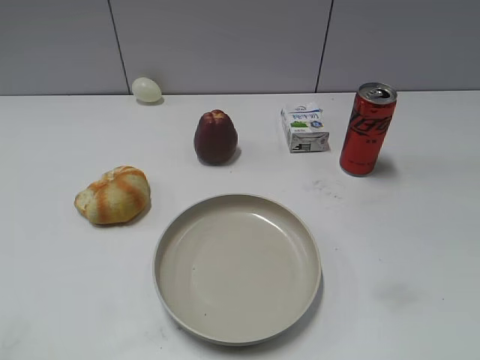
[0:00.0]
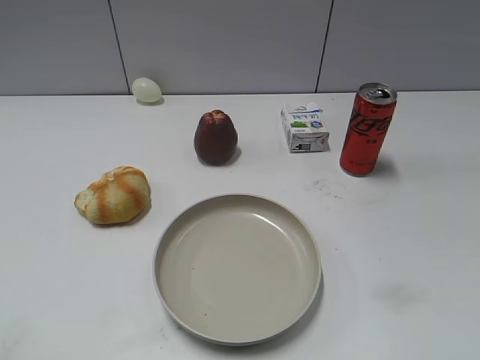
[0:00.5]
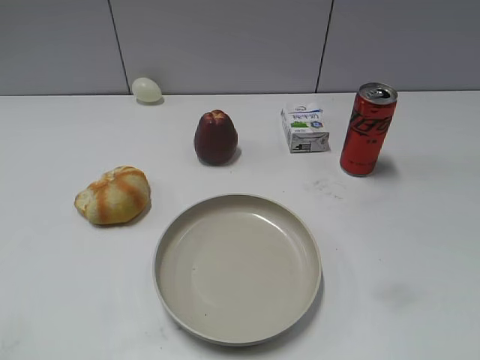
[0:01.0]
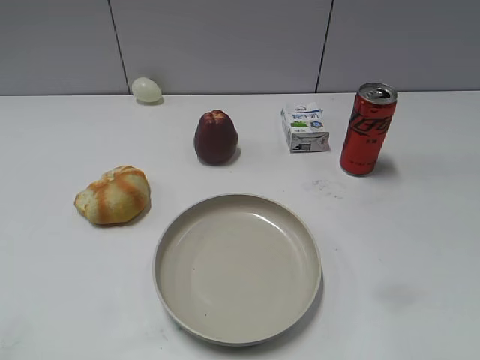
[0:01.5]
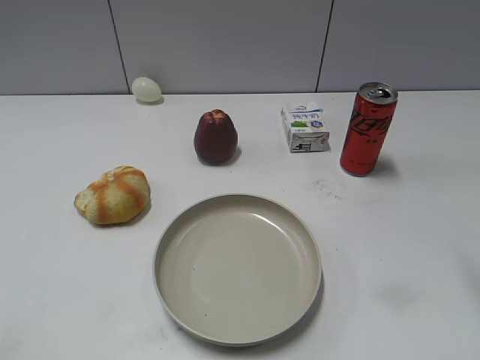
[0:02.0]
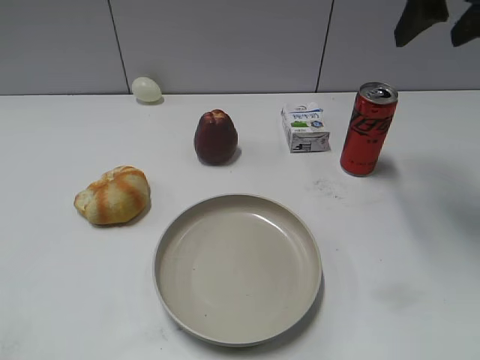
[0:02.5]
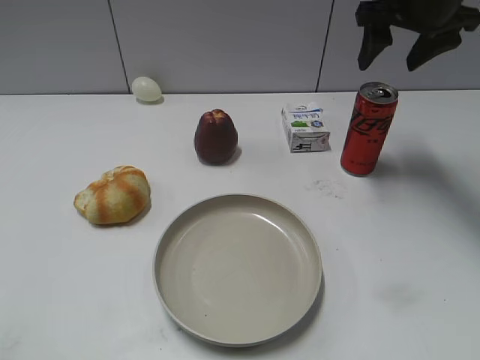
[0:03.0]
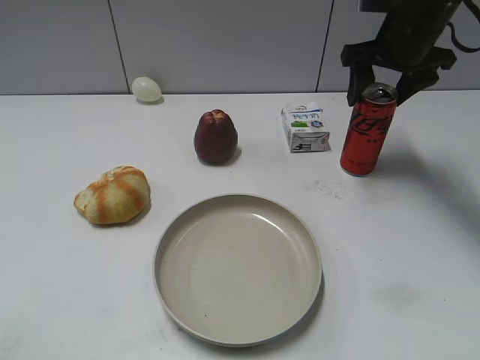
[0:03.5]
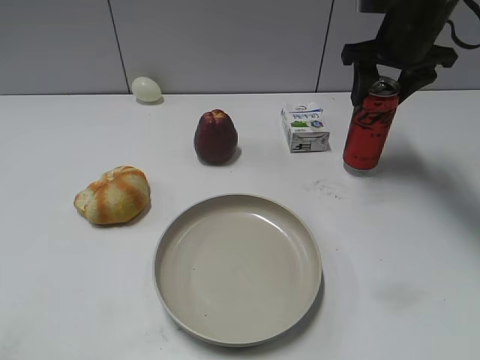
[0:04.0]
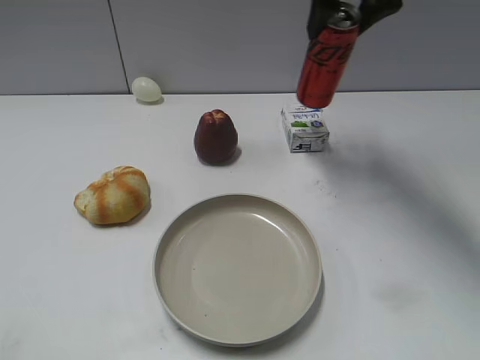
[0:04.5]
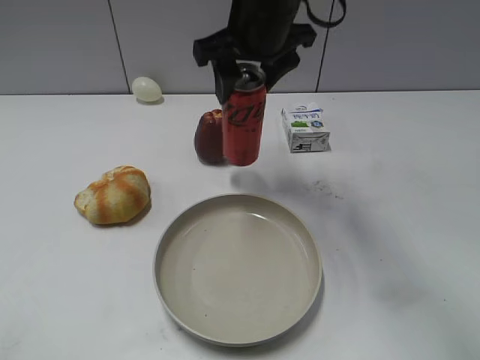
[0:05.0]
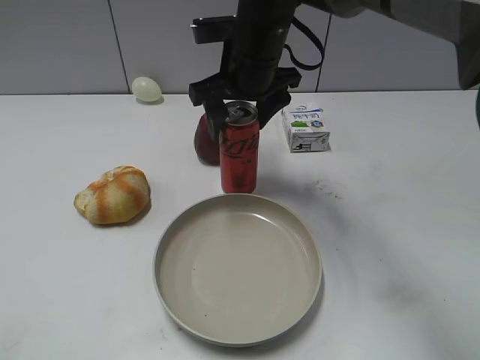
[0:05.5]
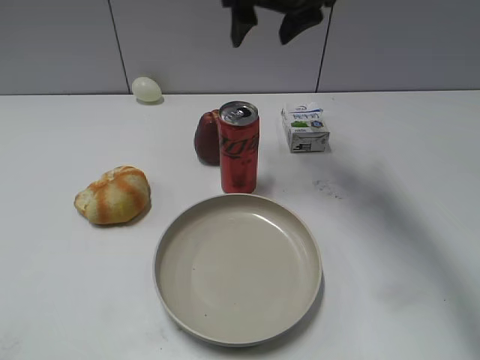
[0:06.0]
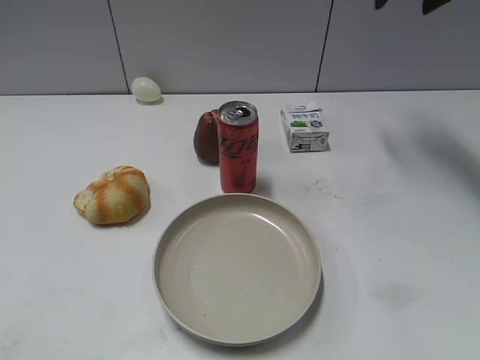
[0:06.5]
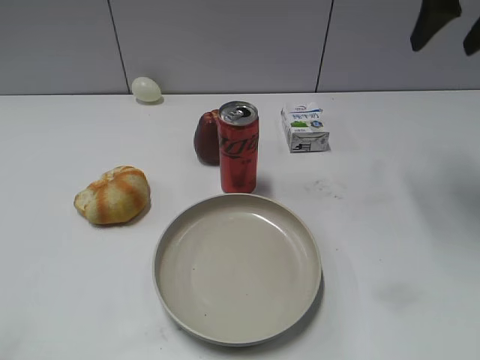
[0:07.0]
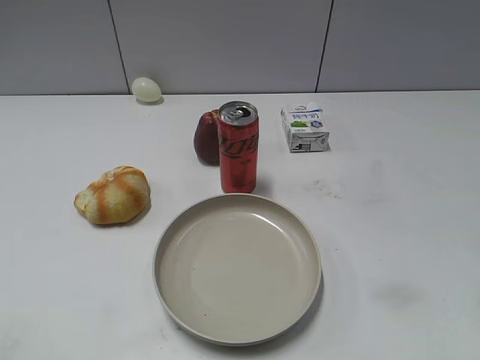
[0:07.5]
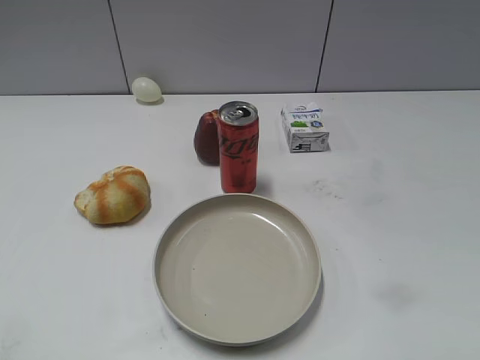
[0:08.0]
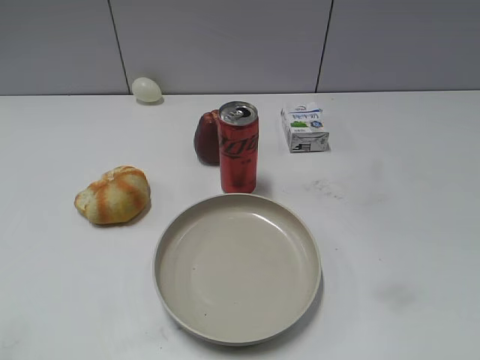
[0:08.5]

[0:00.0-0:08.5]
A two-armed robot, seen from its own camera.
Step, 0:00.0 to 0:03.5: Grasp the cola with right gripper.
Step, 0:04.0 to 0:05.5: Place the cola on the table with right gripper.
0:02.0 to 0:04.0: The right gripper is displaced forward and downward by approximately 25 cm, and opens, then closes once more.
0:04.0 to 0:06.5: The right gripper moves upward, some 10 cm, travels to the left and back again, approximately 20 cm each way, and opens.
0:06.5 to 0:08.5: The right gripper is displaced backward by approximately 40 cm.

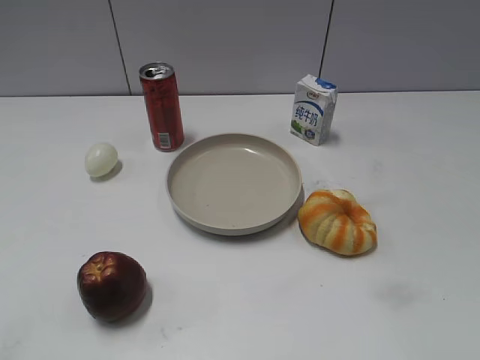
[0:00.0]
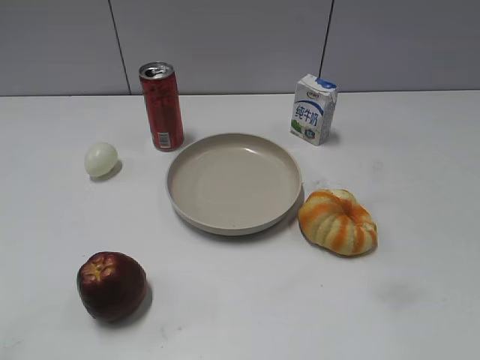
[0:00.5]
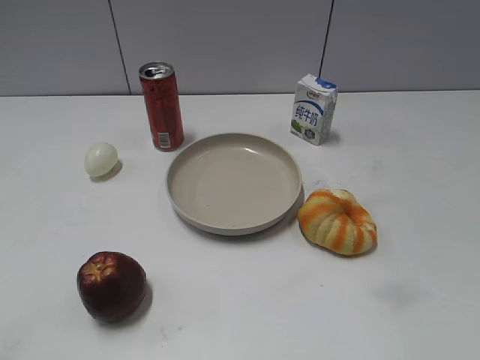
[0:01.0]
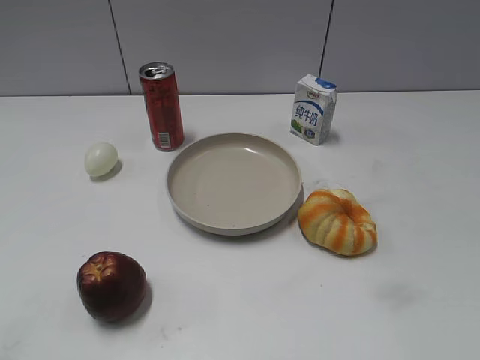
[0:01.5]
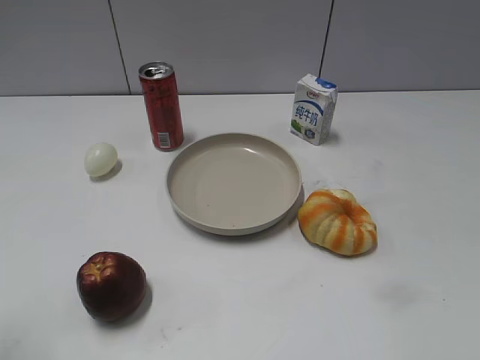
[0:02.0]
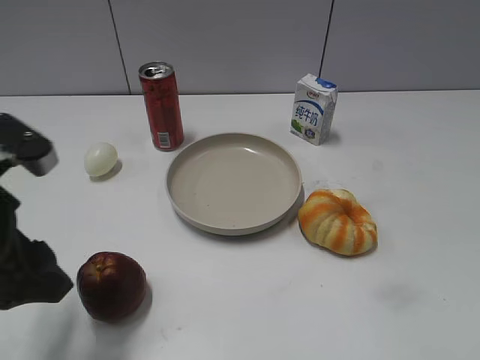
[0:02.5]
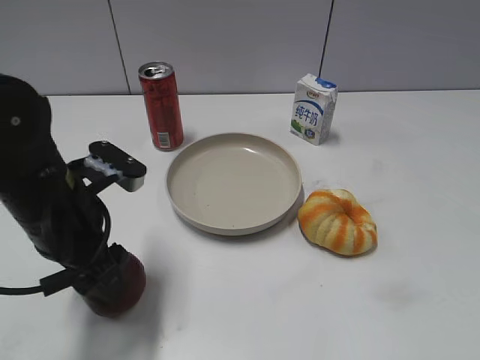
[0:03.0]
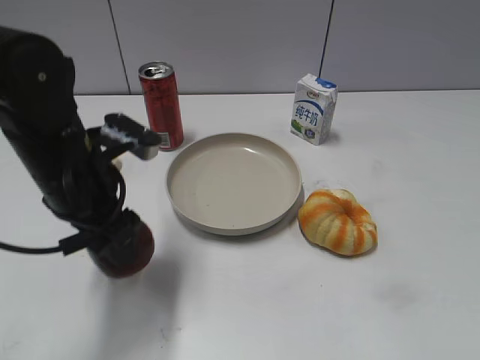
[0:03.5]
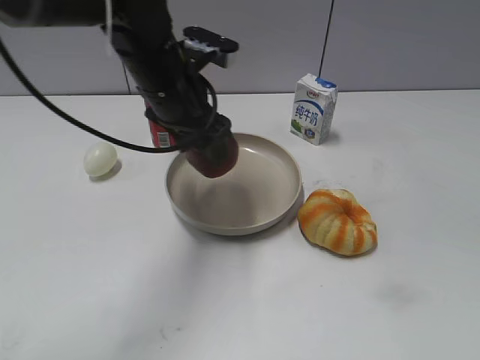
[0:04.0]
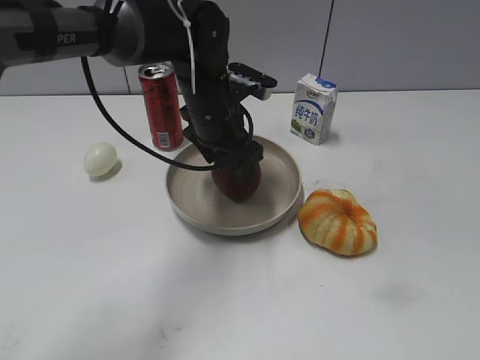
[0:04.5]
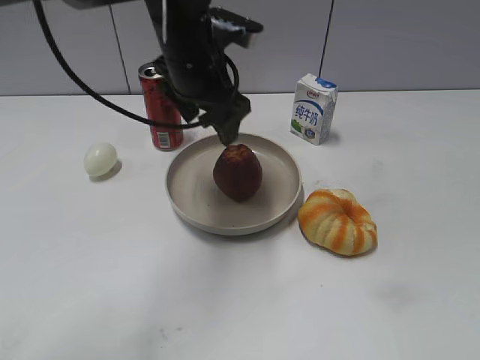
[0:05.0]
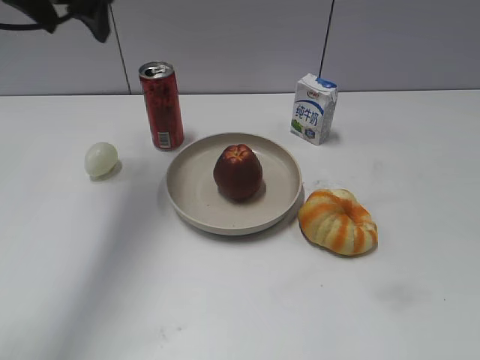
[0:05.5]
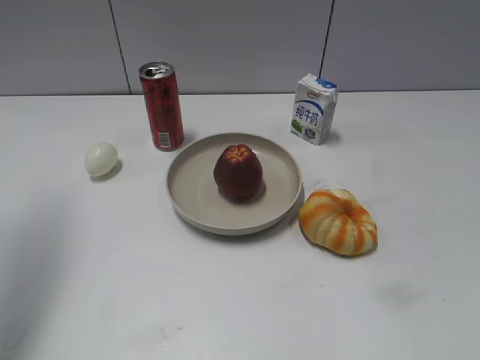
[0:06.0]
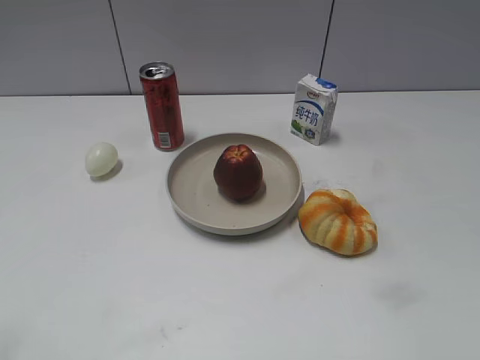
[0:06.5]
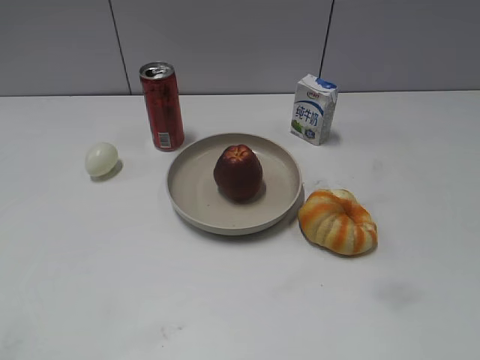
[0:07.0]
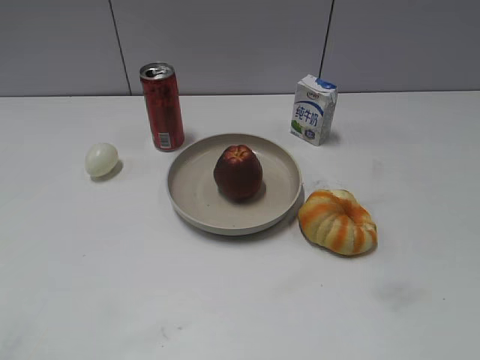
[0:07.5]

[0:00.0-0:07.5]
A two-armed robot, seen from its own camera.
Step, 0:02.5 to 0:03.0: Grasp the apple with left gripper.
Step, 0:03.5 to 0:05.0: Place the apple on the plate with left gripper.
0:02.0 to 0:04.0: The left gripper goes approximately 35 cm forward and to the right, and closes.
0:04.0 to 0:05.5: The left gripper moves to the left and upward, some 20 cm, and opens and closes again.
0:05.5 to 0:07.5: The left gripper shifts approximately 40 cm backward.
